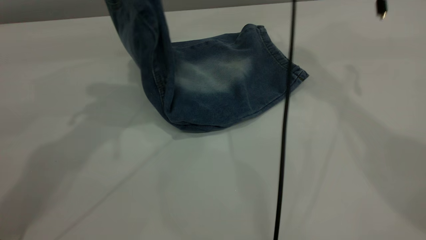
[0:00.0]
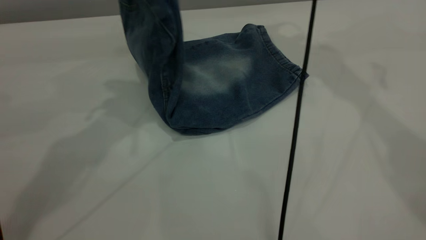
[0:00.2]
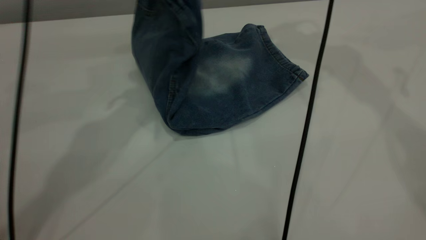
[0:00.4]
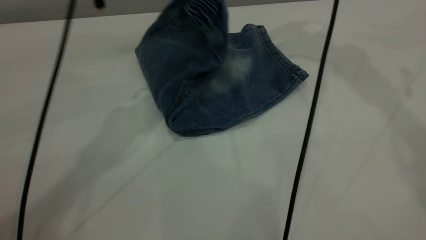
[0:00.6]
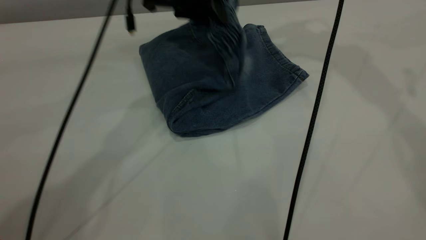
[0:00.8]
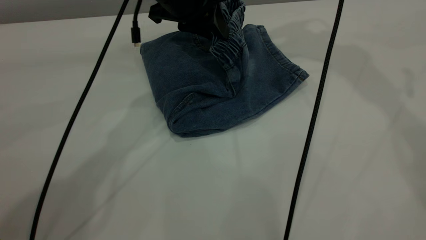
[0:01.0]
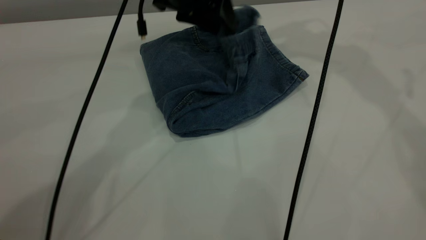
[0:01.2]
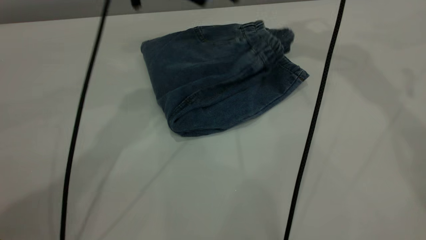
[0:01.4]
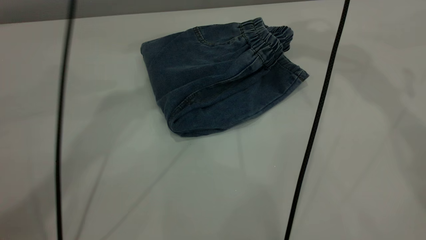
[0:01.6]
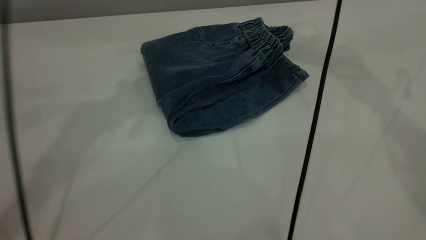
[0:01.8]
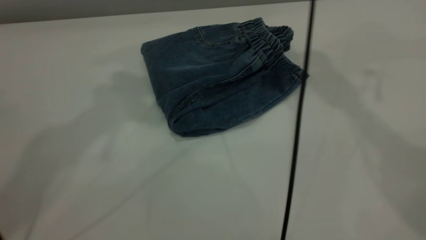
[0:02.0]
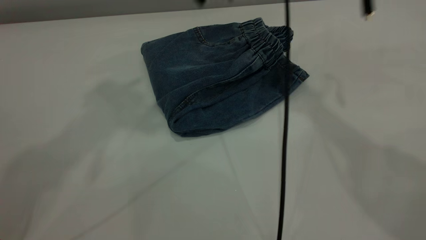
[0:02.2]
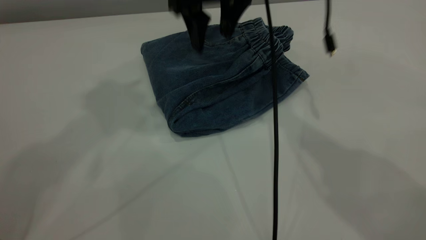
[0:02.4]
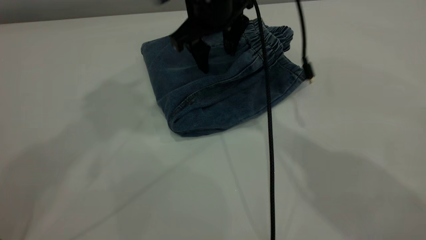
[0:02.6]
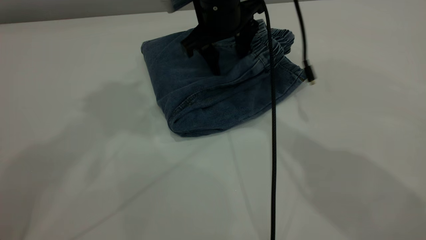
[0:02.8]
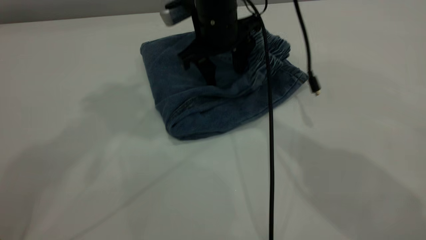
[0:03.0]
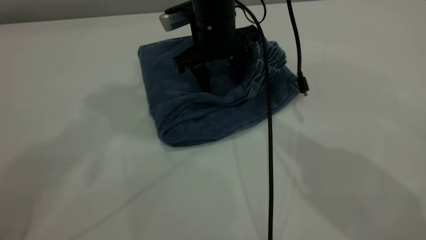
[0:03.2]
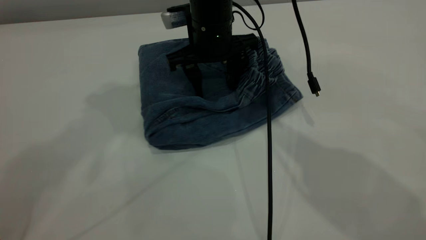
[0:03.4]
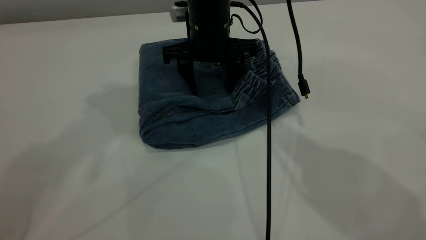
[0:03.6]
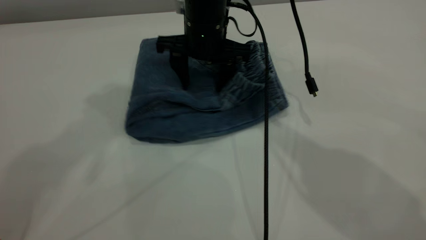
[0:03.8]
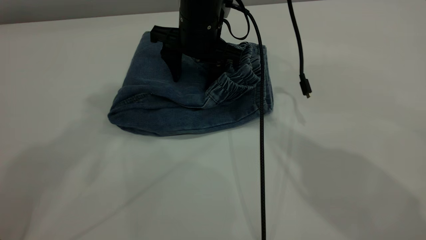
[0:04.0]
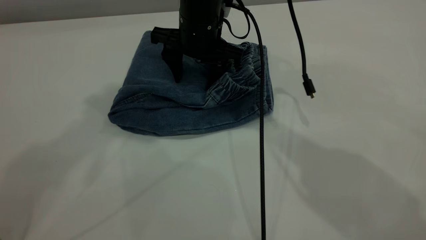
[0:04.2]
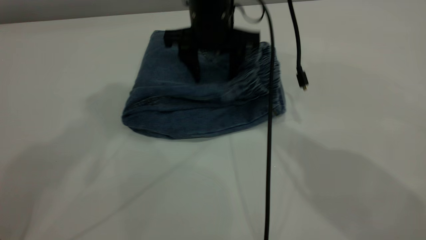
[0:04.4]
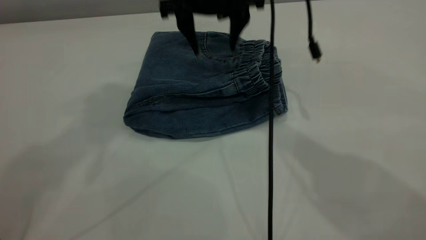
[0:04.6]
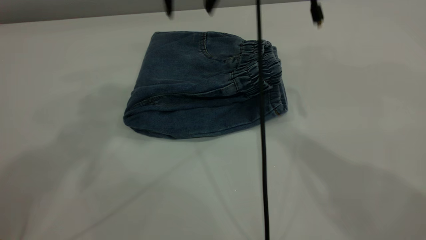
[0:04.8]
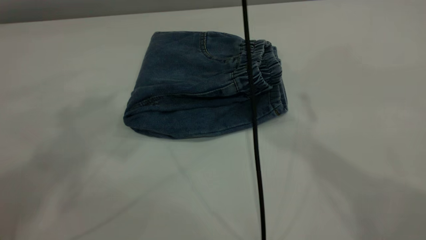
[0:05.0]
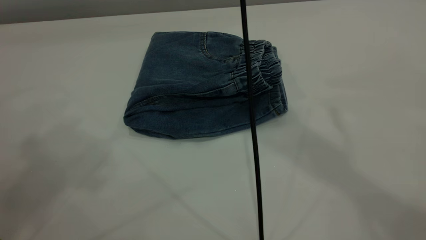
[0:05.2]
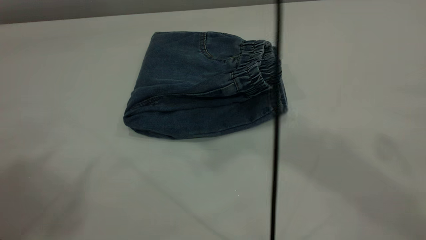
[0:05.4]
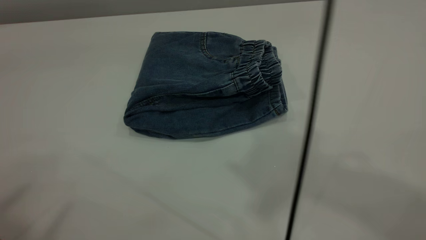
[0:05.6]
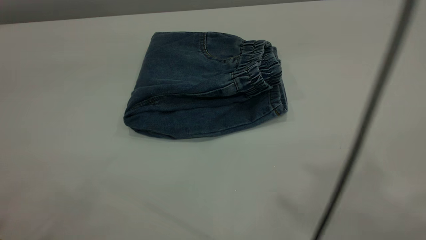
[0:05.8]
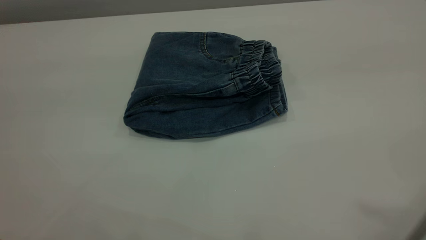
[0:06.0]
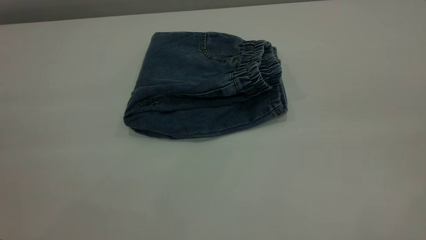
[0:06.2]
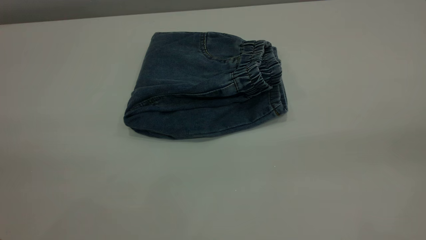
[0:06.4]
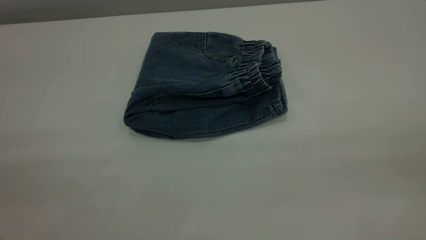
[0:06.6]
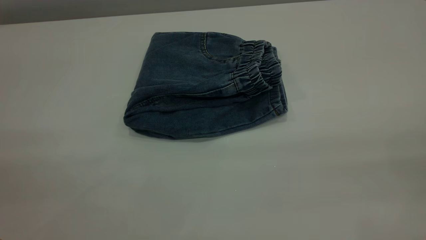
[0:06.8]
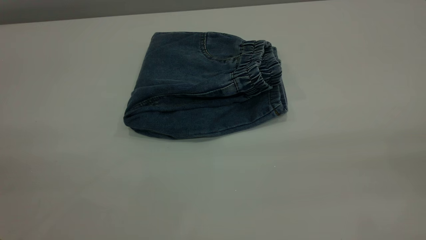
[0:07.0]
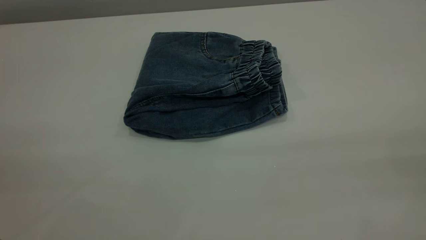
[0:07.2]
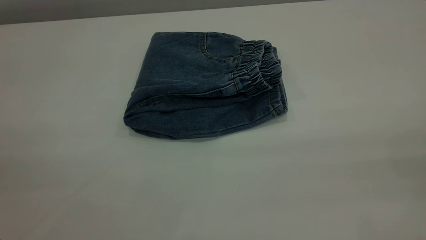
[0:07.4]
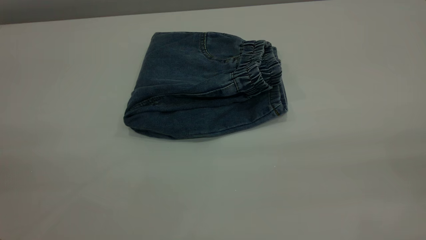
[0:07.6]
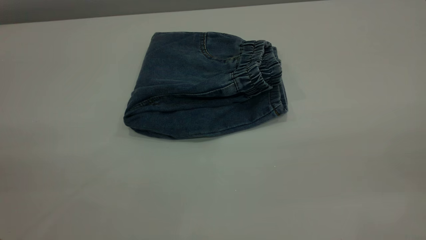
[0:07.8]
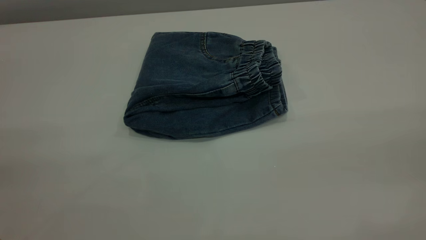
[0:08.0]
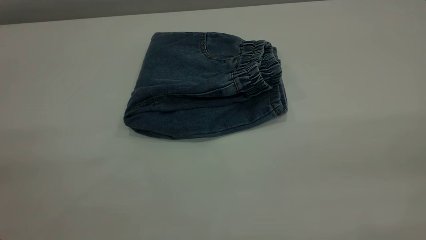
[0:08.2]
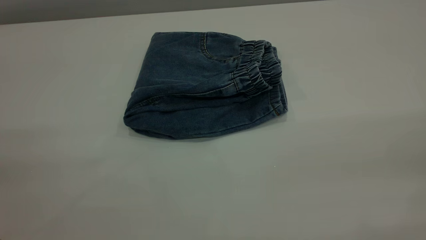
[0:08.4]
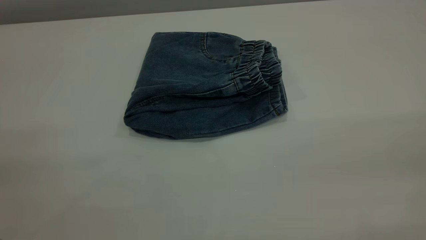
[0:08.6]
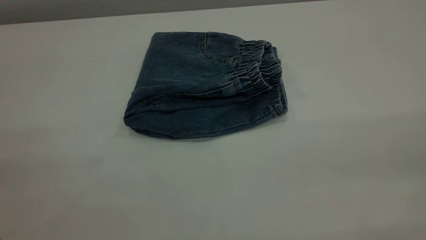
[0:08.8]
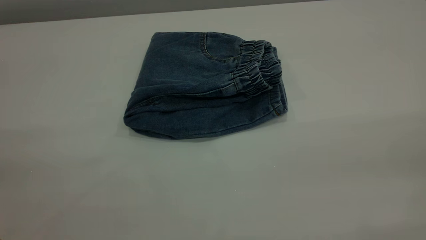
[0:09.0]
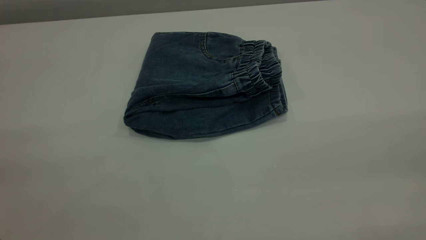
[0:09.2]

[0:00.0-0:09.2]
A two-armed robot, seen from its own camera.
0:00.0 to 0:01.6: The right gripper goes some 10 cm upward and to the right. The left gripper heads forward and to the right, covering approximately 10 cm, goes downward and returns, some 10 cm each way, and opens up.
0:01.6 to 0:03.0: The right gripper goes about 30 cm downward and to the left, while the left gripper goes some 20 cm upward, backward and to the left.
0:03.0 to 0:04.6: The right gripper goes about 10 cm upward.
0:04.6 to 0:06.2: The left gripper moves backward, roughly 30 cm. The right gripper is displaced backward, to the right and upward by approximately 50 cm.
